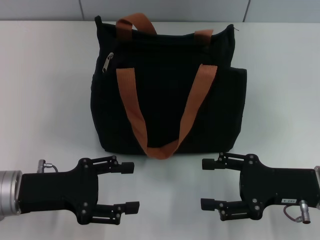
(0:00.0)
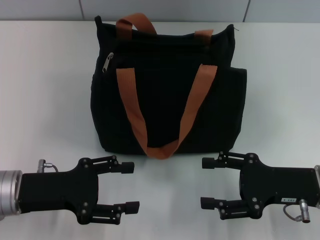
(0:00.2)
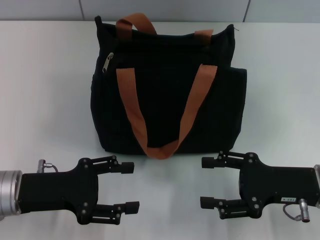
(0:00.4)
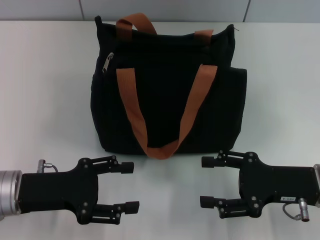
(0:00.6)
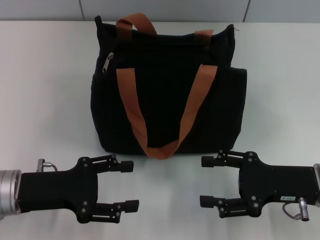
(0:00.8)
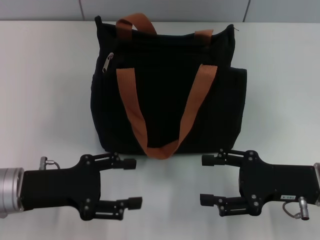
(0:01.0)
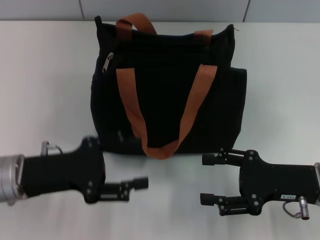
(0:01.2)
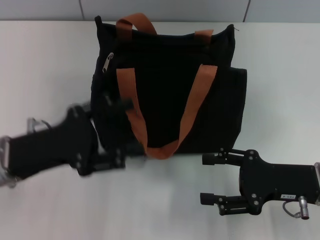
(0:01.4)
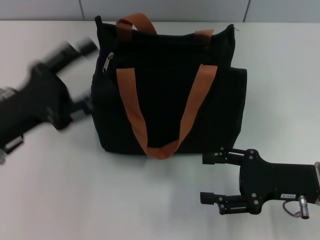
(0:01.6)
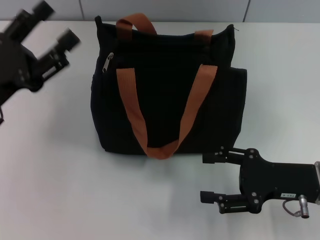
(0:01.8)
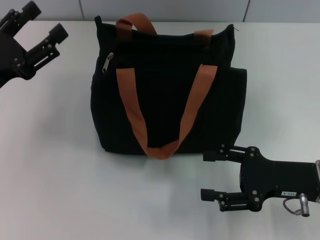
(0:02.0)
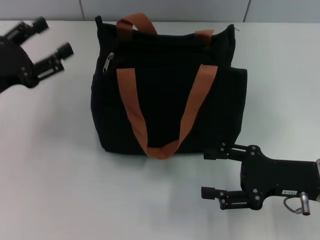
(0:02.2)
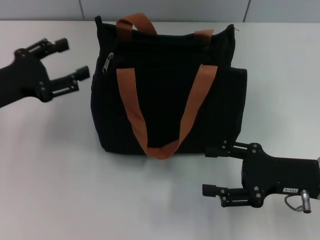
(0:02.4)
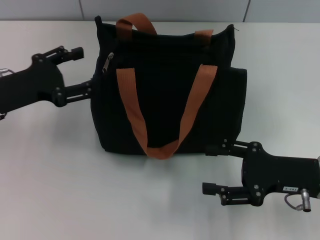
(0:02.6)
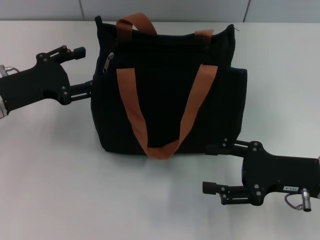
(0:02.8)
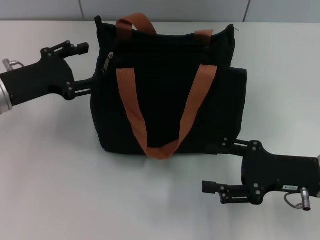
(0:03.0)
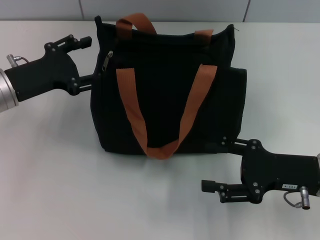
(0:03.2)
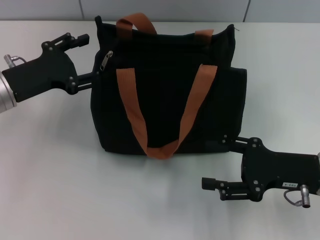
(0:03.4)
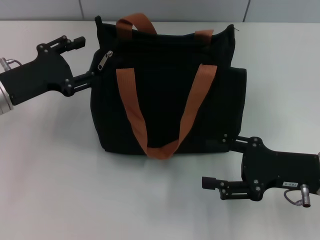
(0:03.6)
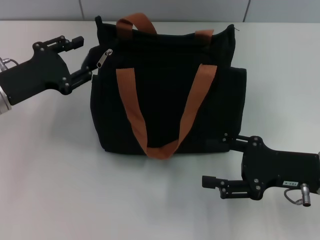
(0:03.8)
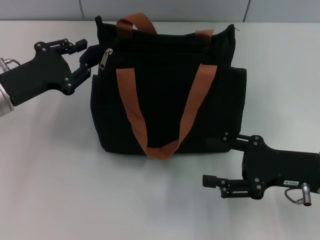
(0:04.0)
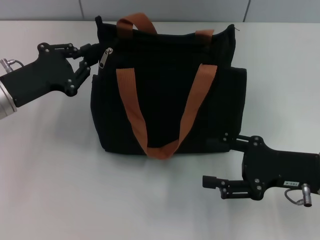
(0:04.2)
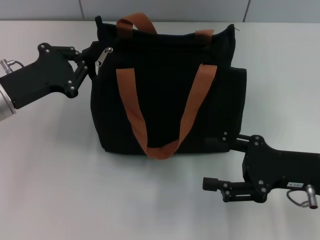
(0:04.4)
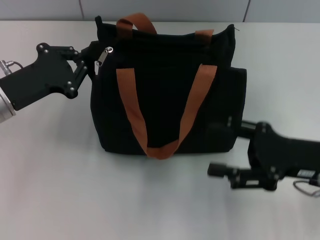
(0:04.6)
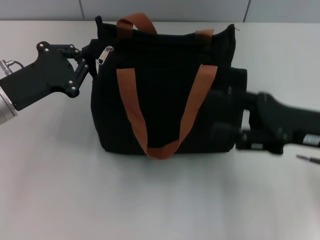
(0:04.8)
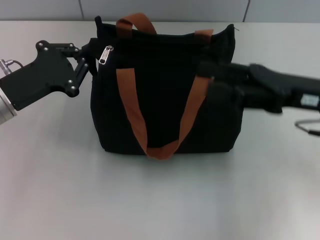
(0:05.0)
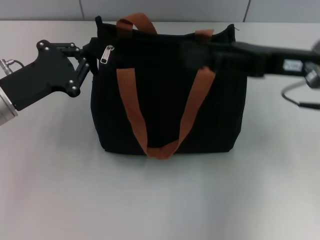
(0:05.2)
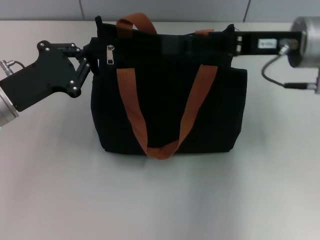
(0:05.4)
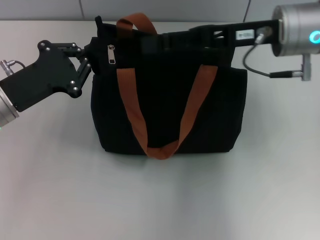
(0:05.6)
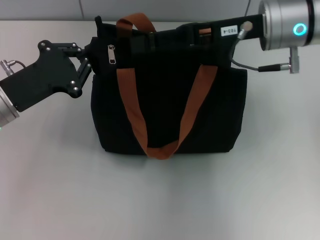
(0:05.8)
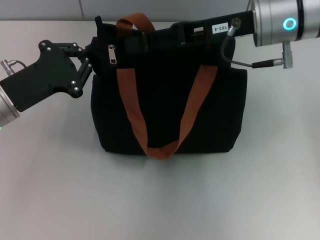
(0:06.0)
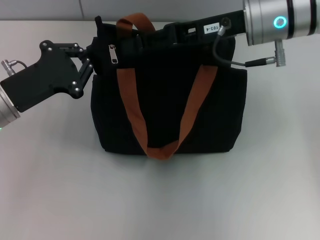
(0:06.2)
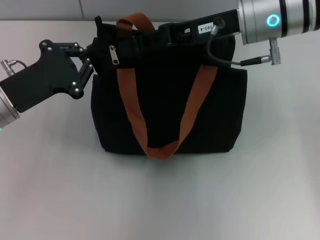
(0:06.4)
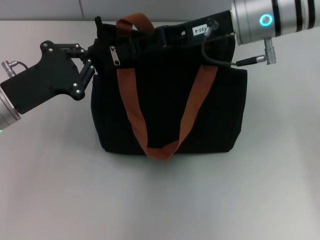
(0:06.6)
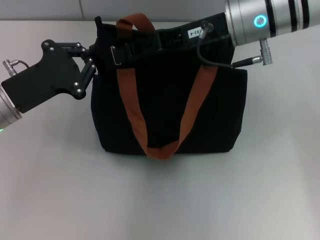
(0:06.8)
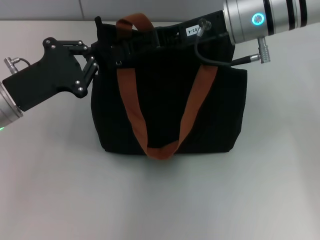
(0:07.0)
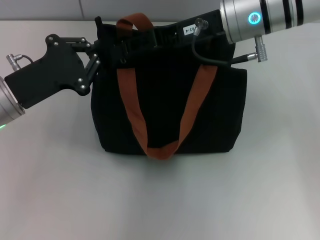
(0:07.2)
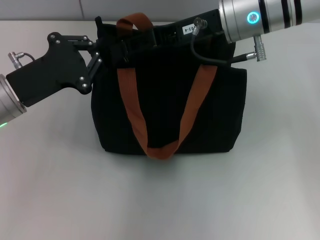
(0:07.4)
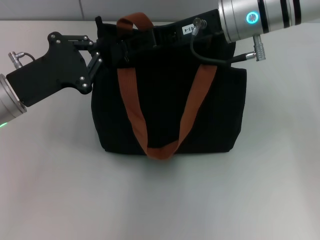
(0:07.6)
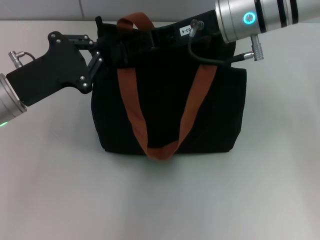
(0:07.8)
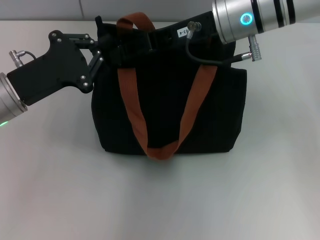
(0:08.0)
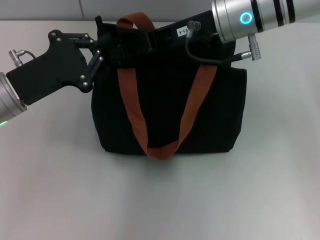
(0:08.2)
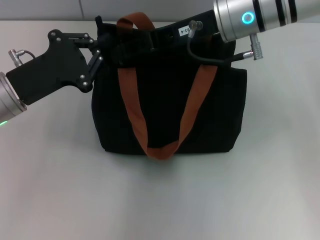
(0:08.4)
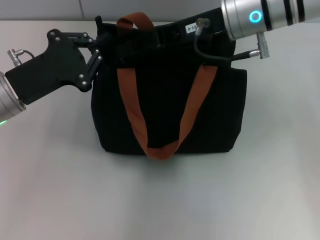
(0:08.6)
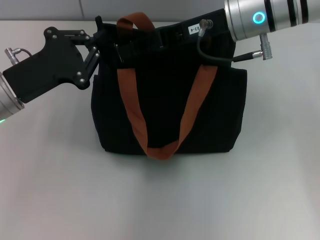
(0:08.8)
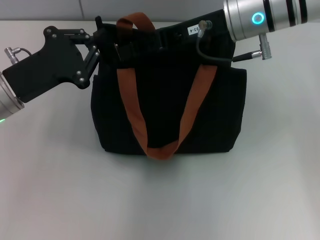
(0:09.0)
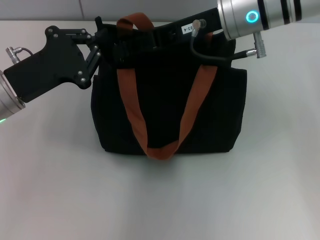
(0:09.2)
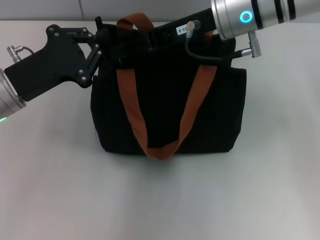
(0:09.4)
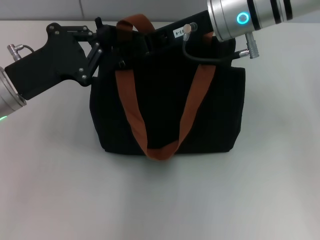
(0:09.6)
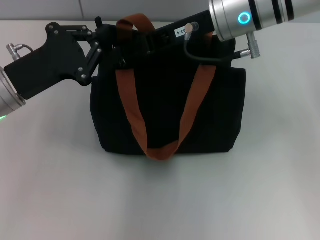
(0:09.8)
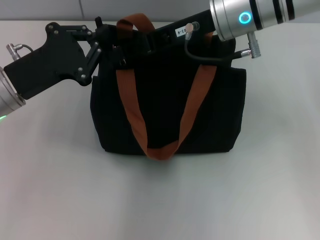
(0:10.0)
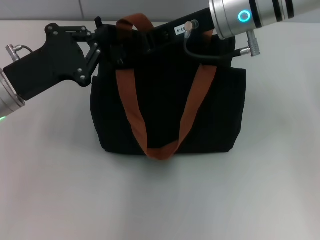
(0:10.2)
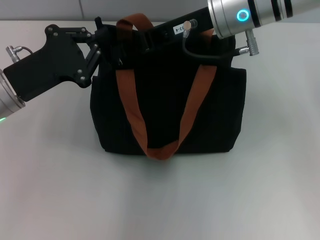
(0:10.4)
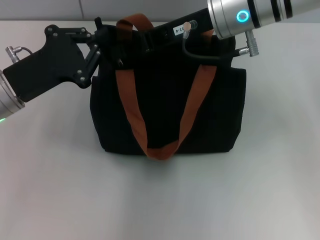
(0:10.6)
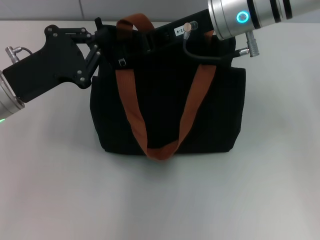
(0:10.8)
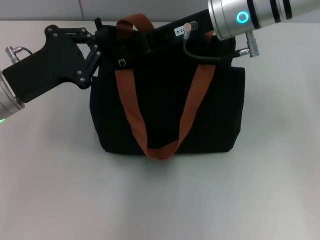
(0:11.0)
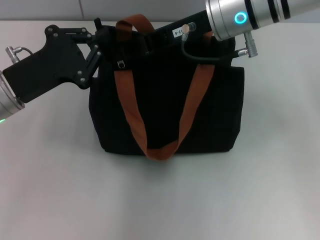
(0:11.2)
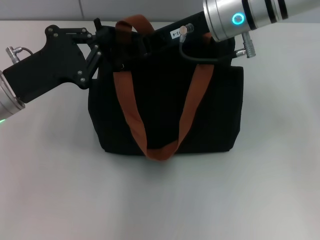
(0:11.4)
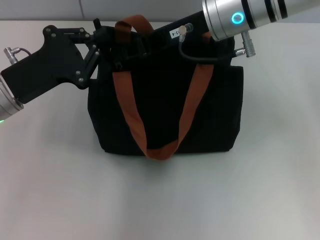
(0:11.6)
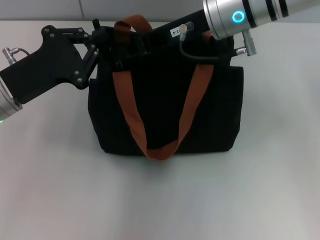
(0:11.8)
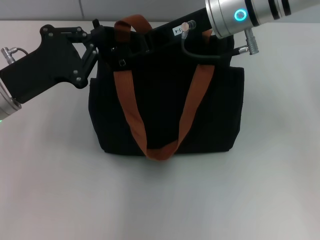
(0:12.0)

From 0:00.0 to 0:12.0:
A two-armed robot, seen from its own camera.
From 0:00.0 to 0:01.6: The left gripper moves approximately 5 cm.
From 0:01.6 to 0:03.0: The left gripper travels forward by about 10 cm.
From 0:03.0 to 0:04.4: The left gripper closes up.
From 0:04.4 to 0:06.0: The right gripper goes about 20 cm forward, upward and to the left.
From 0:06.0 to 0:07.6: The grippers make only small movements.
From 0:07.6 to 0:09.0: The two grippers keep their place.
From 0:09.0 to 0:10.4: The grippers make only small movements.
From 0:10.4 to 0:12.0: Both grippers stay about where they are.

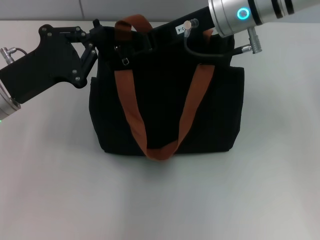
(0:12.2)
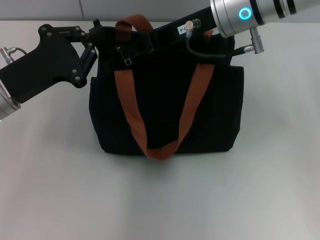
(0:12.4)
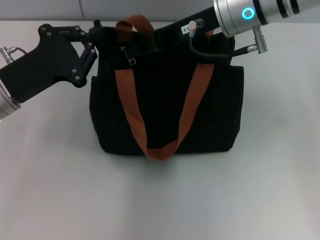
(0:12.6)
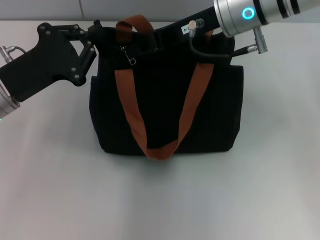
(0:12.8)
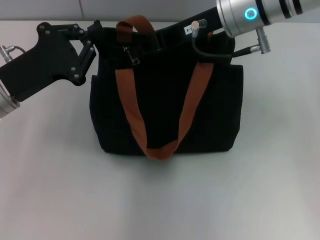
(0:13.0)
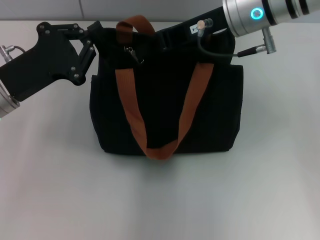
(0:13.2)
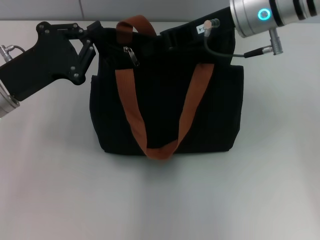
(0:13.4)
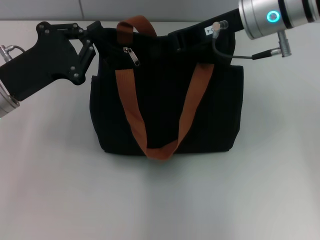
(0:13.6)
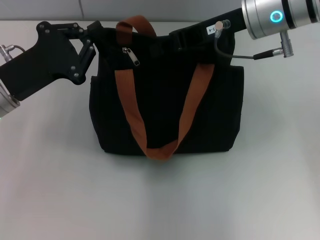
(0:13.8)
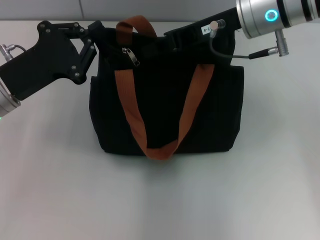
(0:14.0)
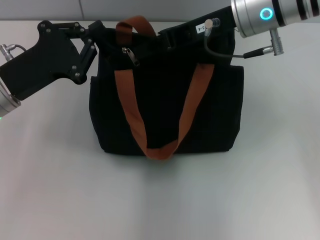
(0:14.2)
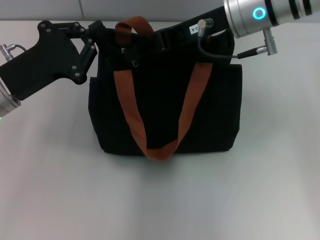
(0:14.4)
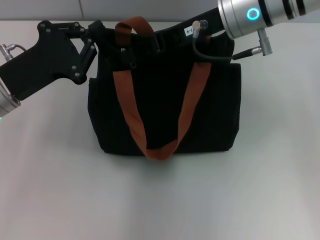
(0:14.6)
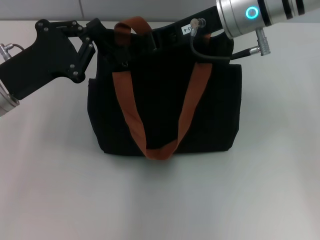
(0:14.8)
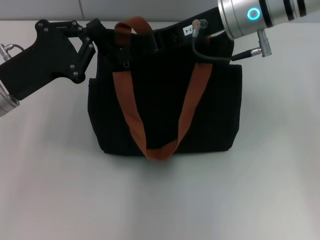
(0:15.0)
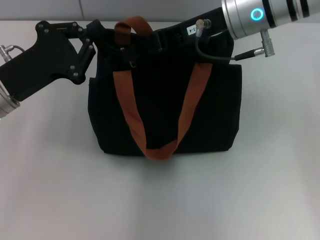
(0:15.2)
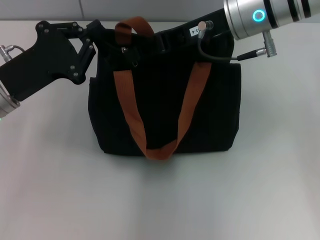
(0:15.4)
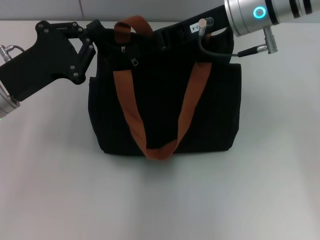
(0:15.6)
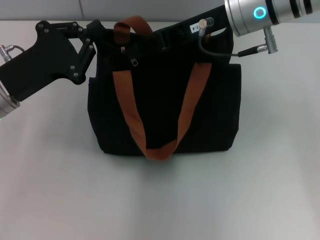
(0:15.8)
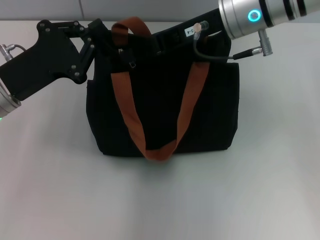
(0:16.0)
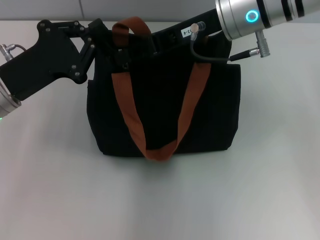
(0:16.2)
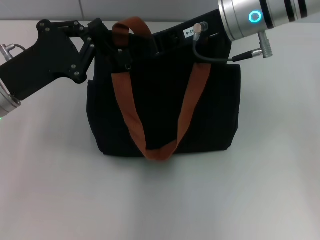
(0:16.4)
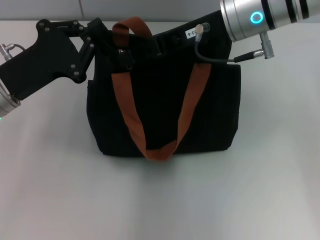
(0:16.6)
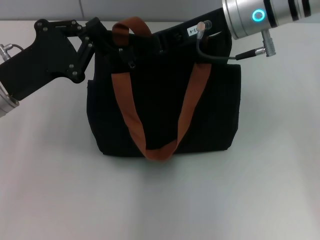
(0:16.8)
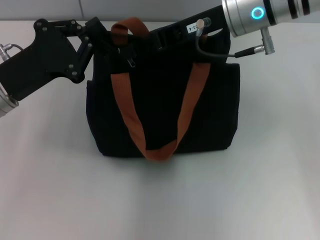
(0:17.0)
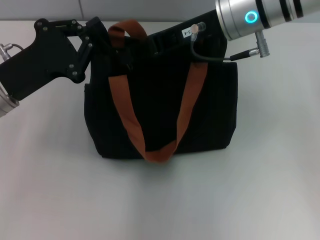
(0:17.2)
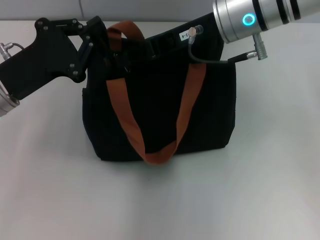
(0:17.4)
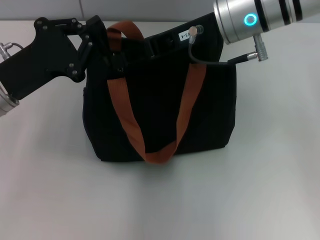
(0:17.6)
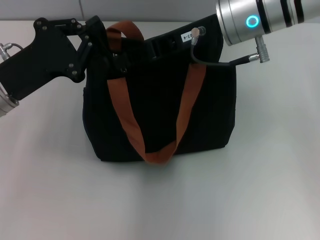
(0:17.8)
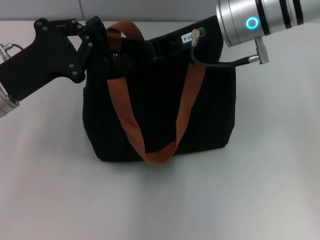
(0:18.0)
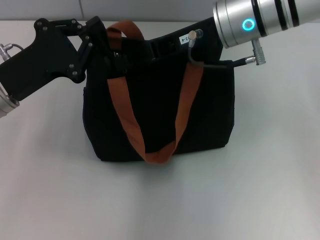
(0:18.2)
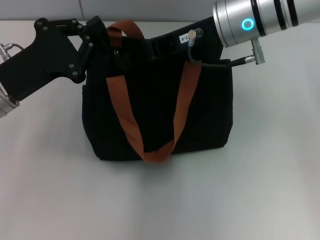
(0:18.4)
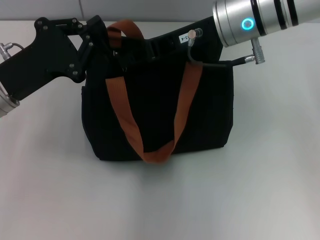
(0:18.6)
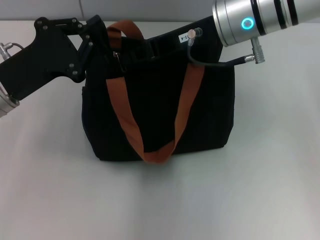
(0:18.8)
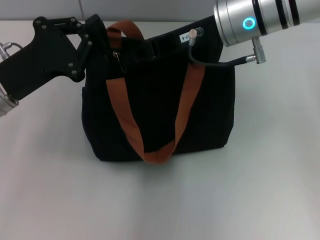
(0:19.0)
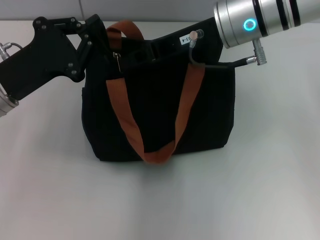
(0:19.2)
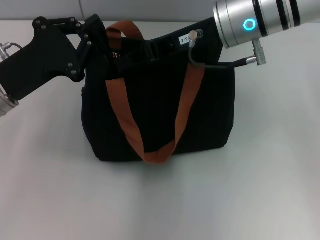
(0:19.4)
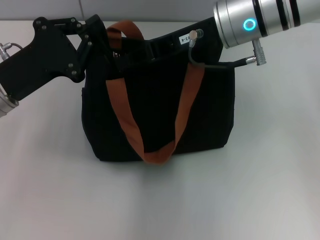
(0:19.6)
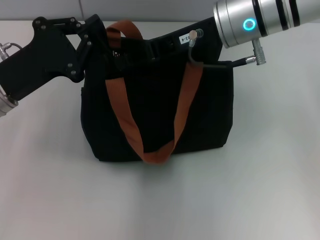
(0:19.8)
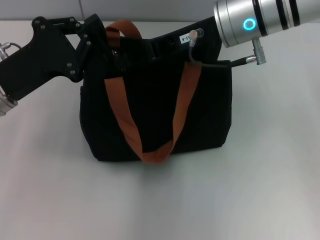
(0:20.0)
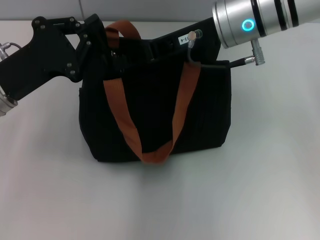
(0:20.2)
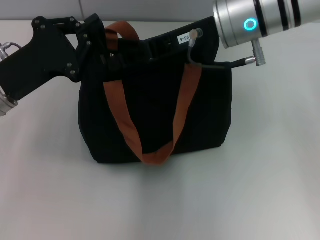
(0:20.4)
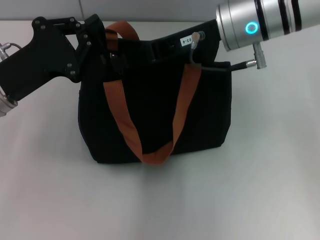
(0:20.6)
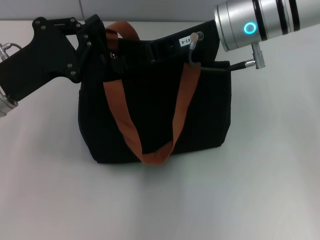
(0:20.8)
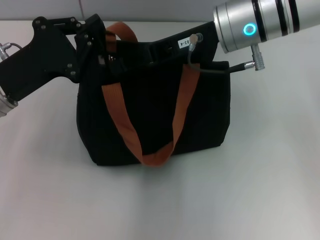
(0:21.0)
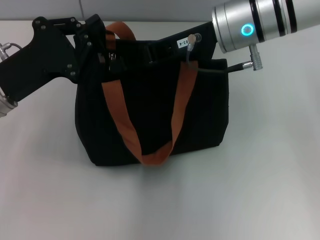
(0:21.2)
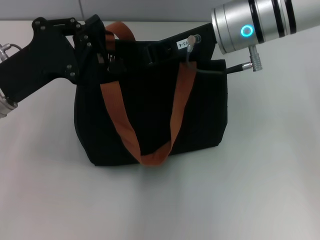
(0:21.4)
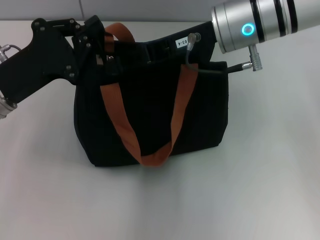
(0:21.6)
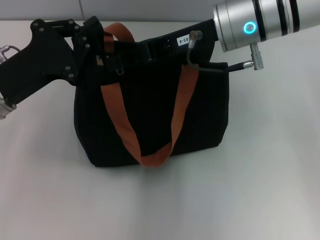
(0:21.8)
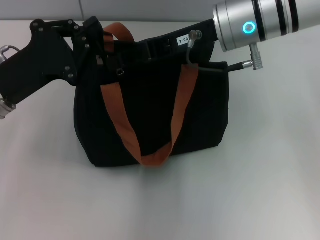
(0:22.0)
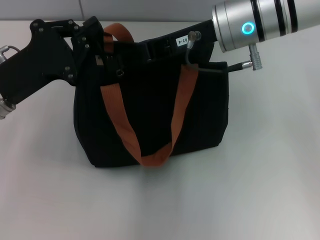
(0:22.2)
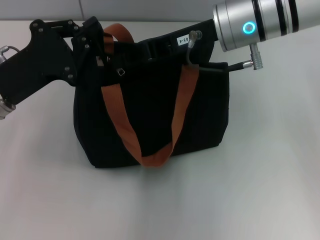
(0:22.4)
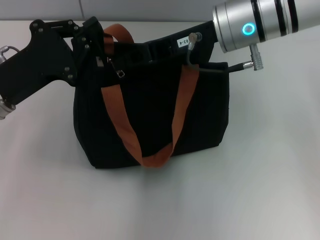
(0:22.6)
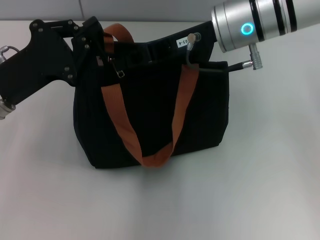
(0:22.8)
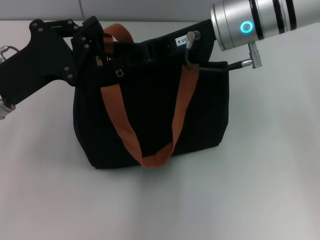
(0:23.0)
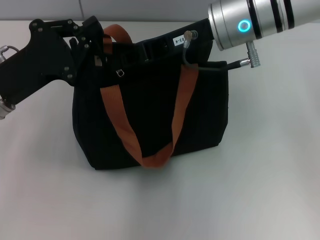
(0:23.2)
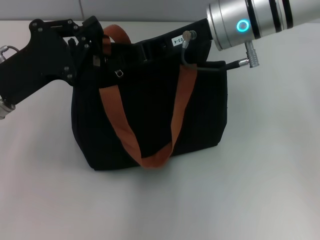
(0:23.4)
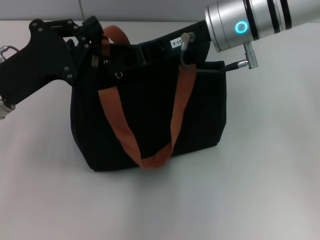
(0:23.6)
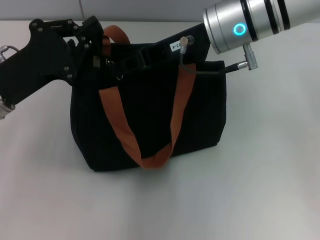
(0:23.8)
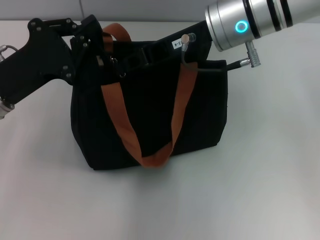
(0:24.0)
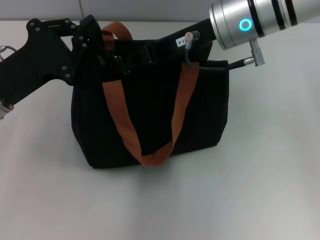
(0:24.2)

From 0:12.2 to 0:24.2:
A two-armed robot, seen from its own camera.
From 0:12.2 to 0:13.8: The grippers move only a little.
From 0:13.8 to 0:15.2: The right gripper opens its fingers.
From 0:15.2 to 0:19.8: The two grippers keep their place.
From 0:19.8 to 0:21.2: Both grippers stay put.
From 0:21.2 to 0:24.2: Both grippers stay put.
